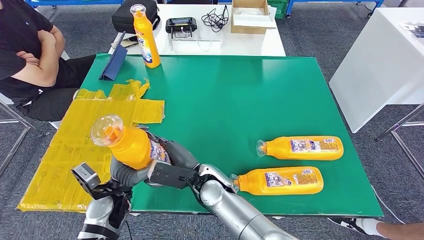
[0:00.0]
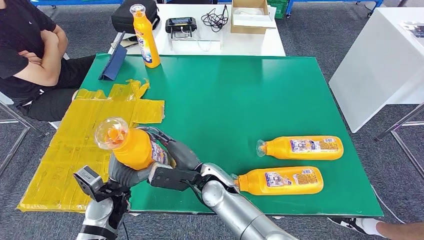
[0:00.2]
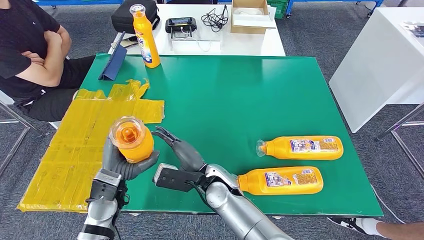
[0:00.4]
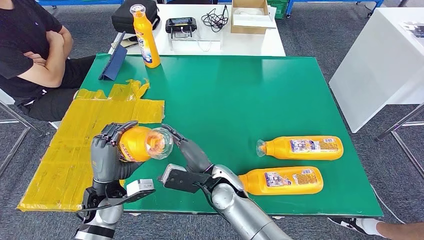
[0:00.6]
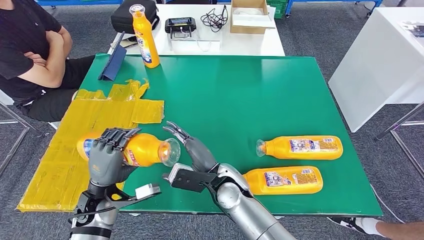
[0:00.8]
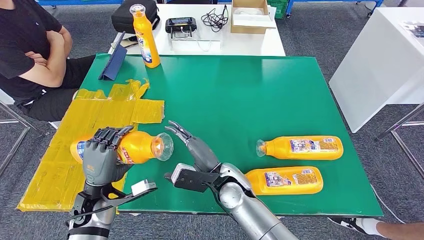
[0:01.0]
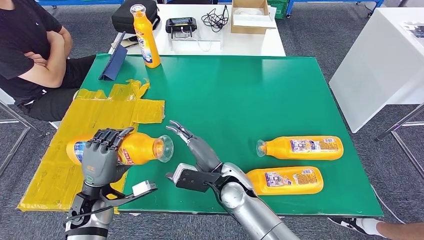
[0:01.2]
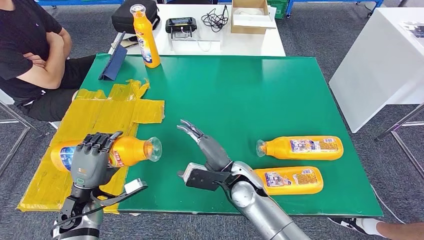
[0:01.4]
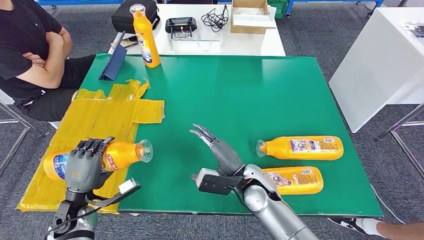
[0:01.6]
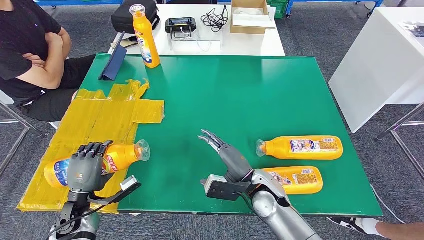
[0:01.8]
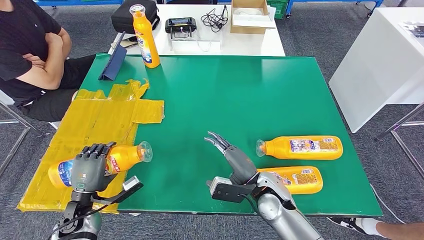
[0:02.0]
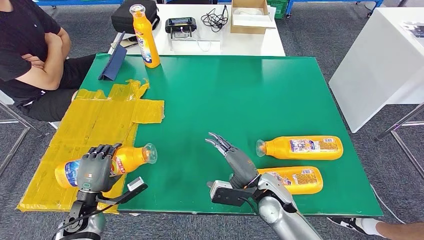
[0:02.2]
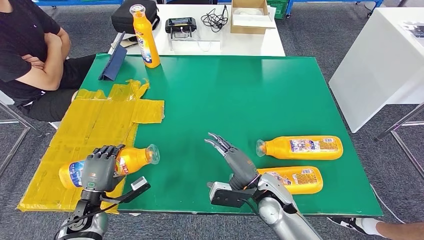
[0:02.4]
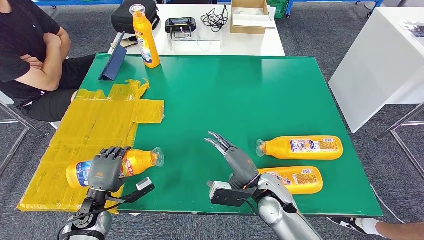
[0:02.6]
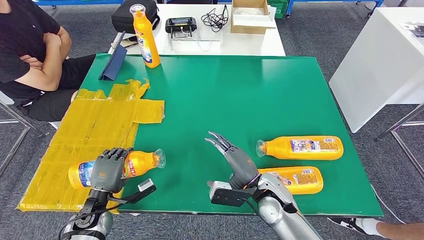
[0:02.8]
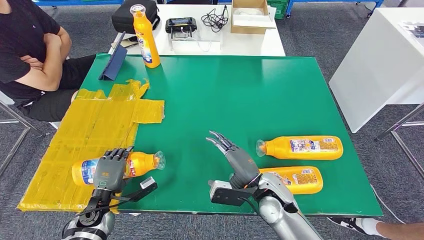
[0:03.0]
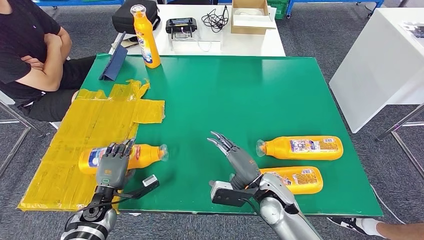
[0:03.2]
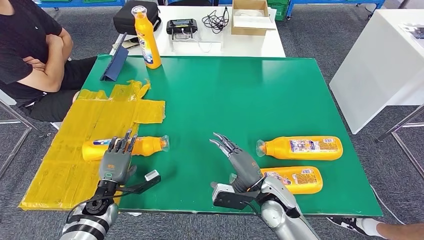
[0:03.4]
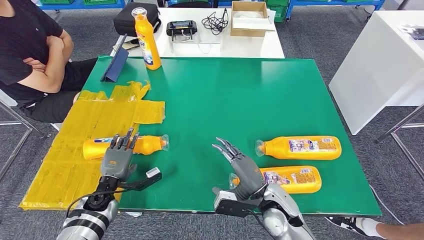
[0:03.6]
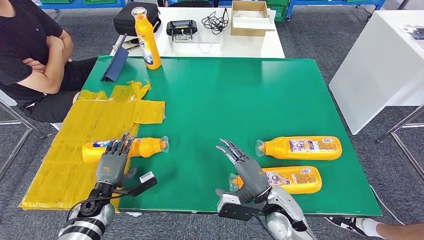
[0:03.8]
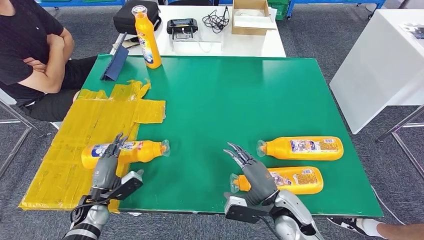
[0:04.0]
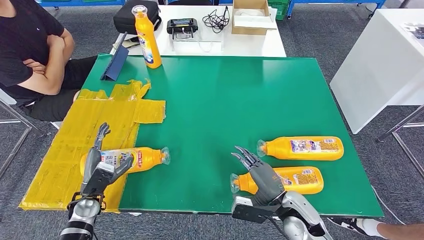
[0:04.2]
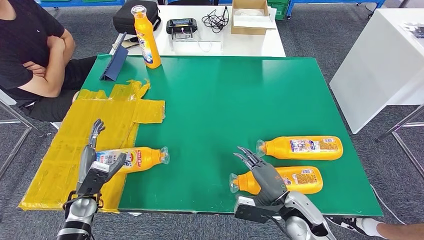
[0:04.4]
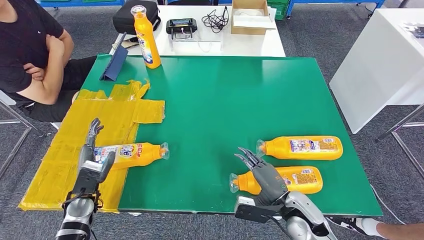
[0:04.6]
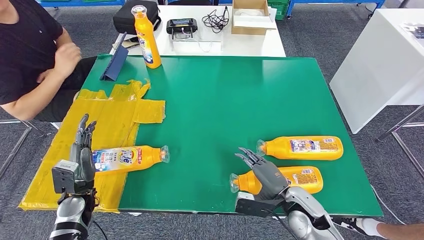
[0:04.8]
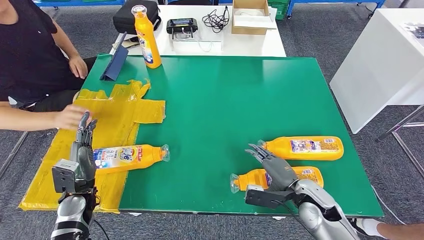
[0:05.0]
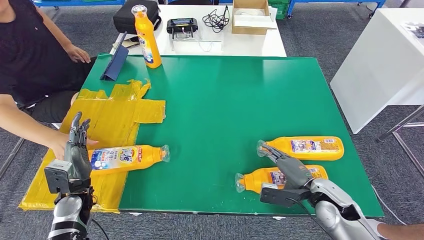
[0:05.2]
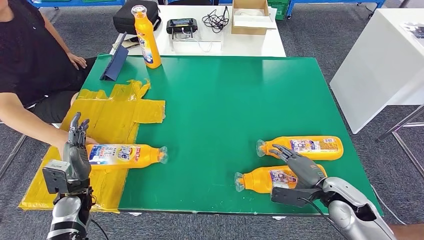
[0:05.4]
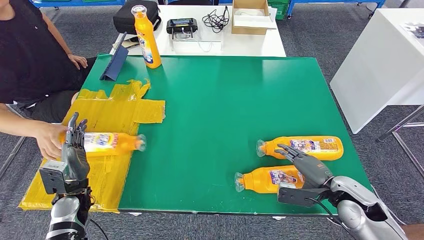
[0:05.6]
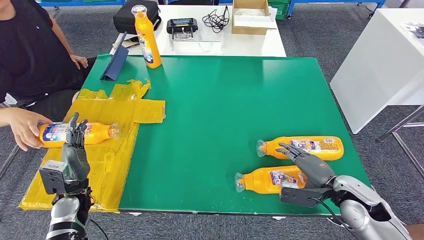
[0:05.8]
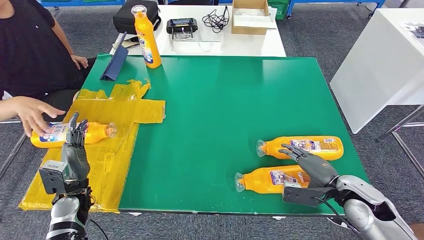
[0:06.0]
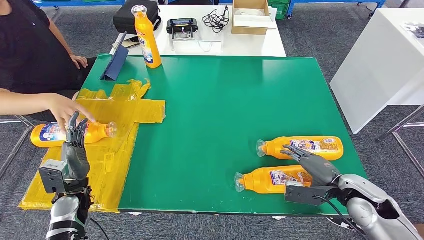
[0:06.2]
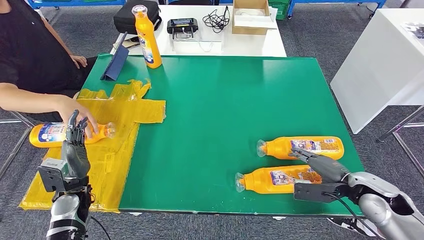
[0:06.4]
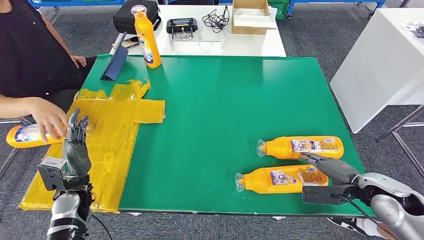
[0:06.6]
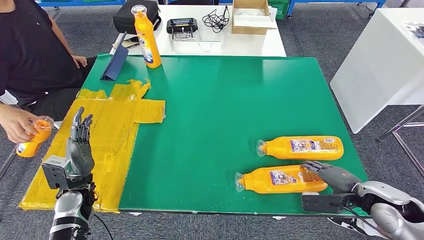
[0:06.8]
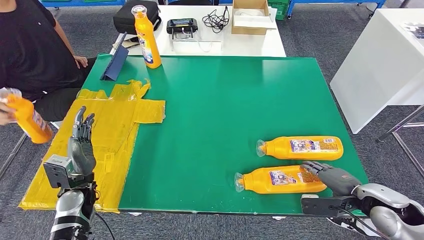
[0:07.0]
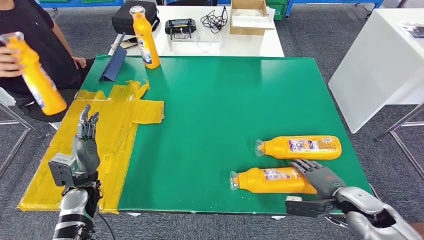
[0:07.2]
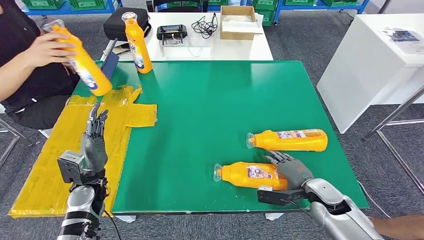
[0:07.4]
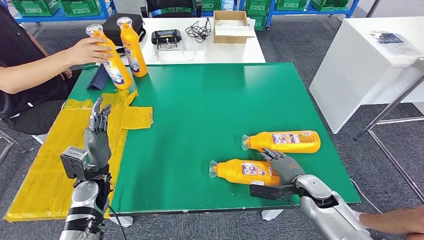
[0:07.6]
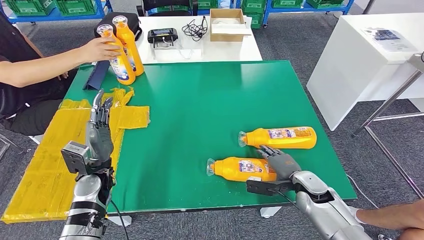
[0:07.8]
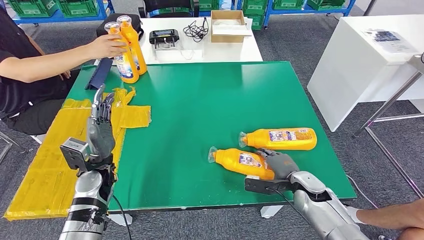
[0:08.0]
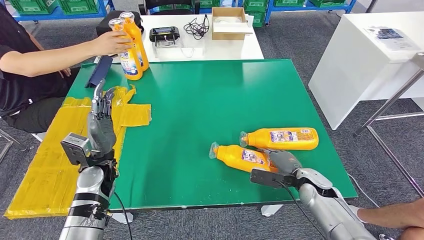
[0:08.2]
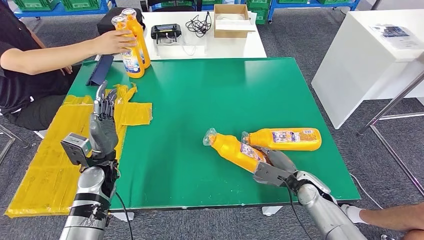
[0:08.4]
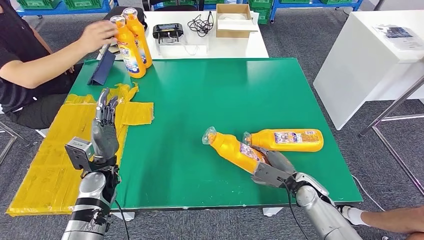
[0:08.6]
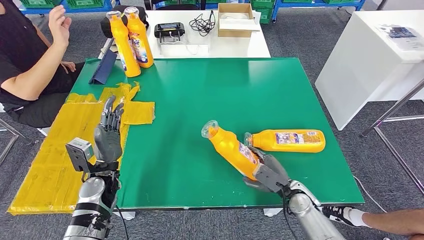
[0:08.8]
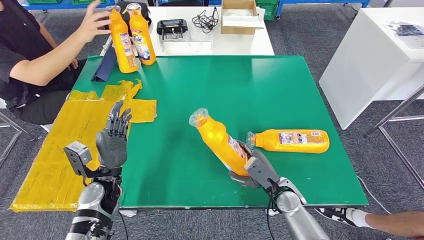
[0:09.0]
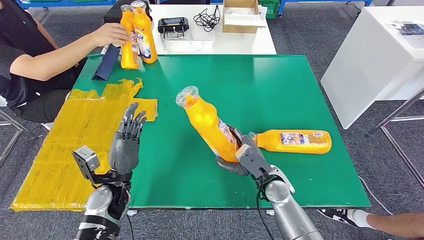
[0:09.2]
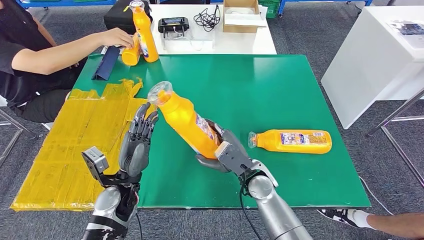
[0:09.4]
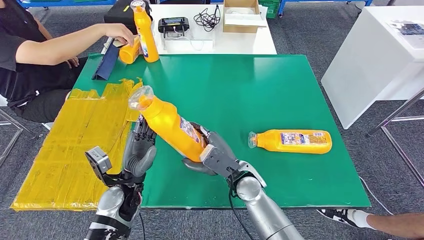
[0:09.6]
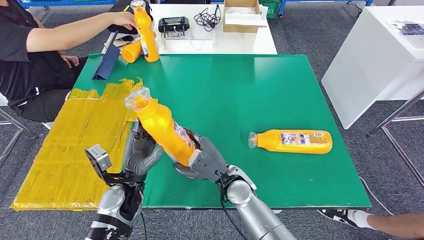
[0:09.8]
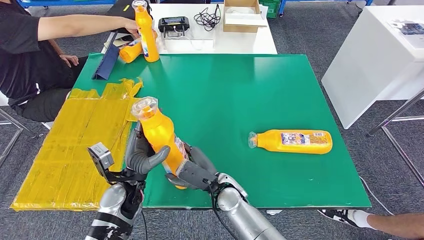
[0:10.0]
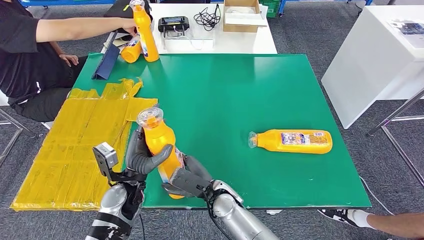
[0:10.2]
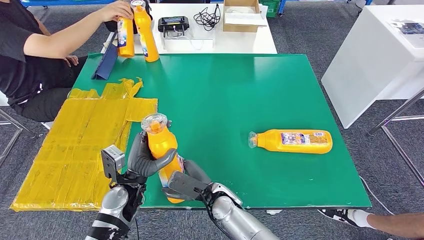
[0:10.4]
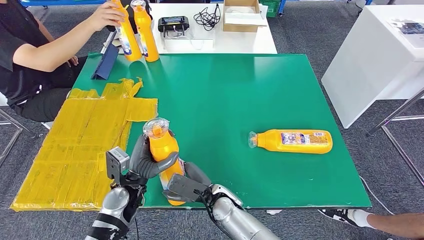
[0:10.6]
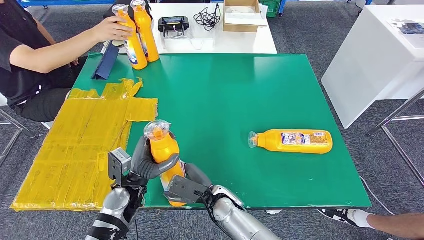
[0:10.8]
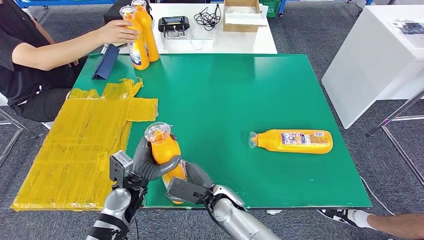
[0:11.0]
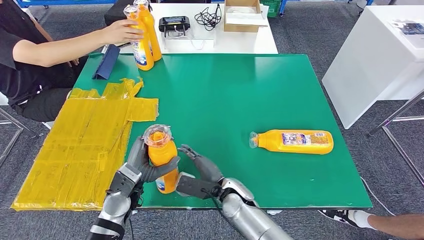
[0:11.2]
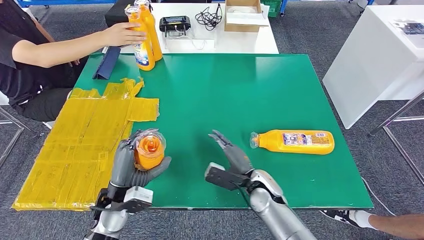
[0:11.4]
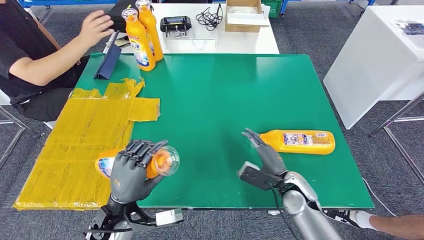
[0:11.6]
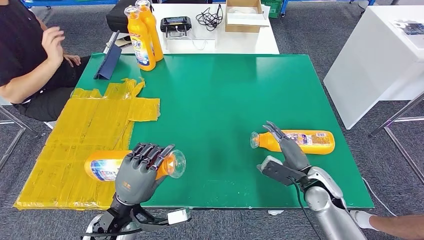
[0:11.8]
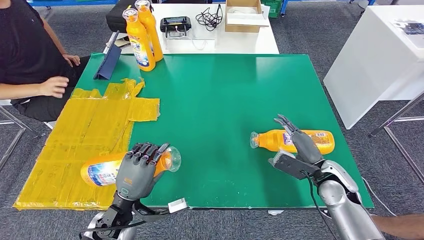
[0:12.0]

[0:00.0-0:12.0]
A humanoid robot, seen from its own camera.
Step, 0:00.0 to 0:03.8: Flip the bottle to face forward.
Step, 0:04.4 to 0:09.4: Pick up the bottle from the table.
0:00.0 to 0:01.6: The right hand goes about 10 cm to the right. Meanwhile the left hand travels to the left by some 10 cm.
0:01.6 to 0:03.0: The left hand travels downward by roughly 5 cm.
0:03.0 to 0:04.4: The right hand shifts roughly 5 cm to the right.
0:04.4 to 0:06.0: The right hand travels to the right by about 15 cm.

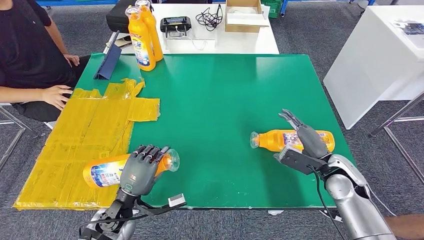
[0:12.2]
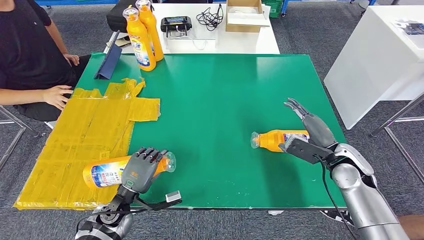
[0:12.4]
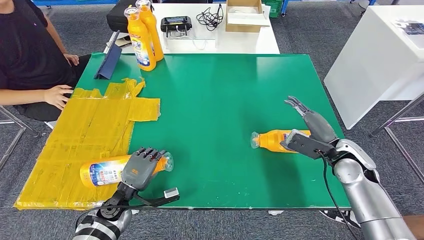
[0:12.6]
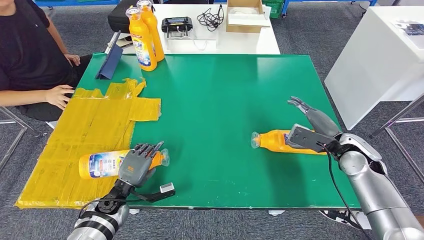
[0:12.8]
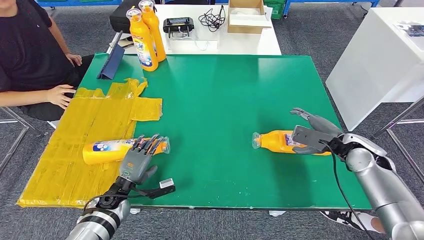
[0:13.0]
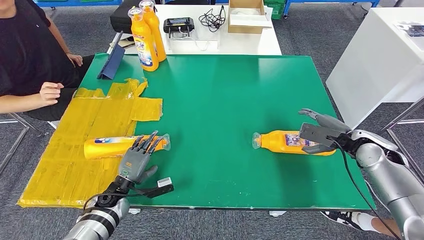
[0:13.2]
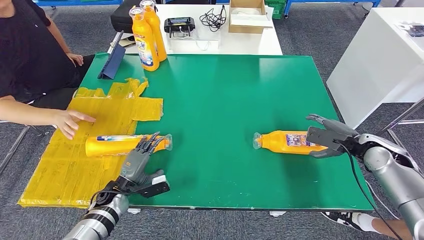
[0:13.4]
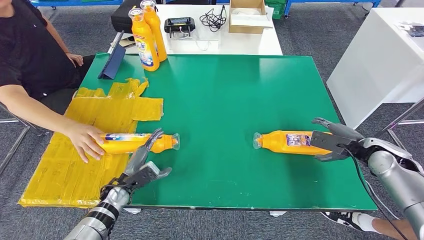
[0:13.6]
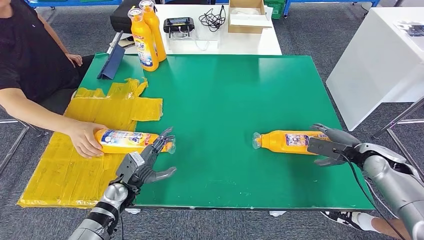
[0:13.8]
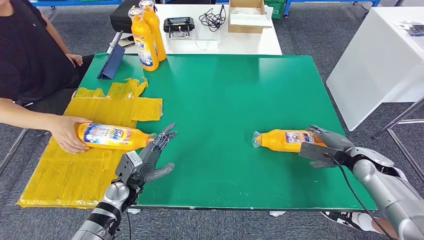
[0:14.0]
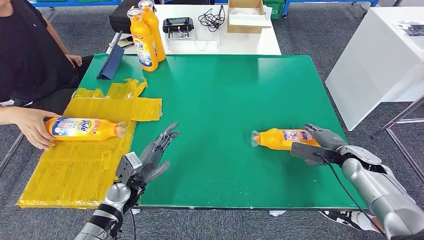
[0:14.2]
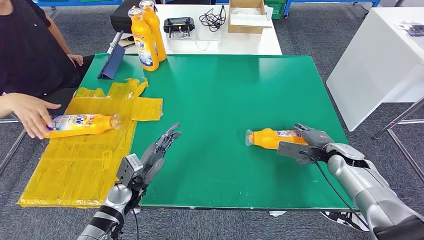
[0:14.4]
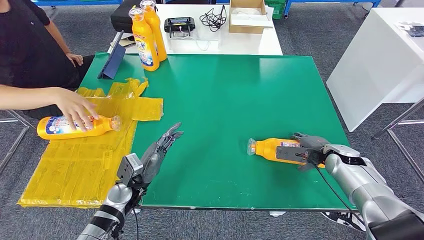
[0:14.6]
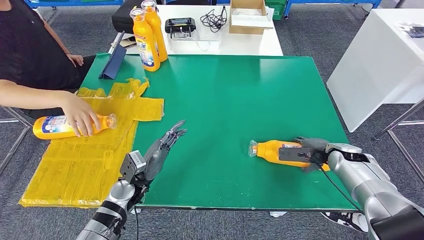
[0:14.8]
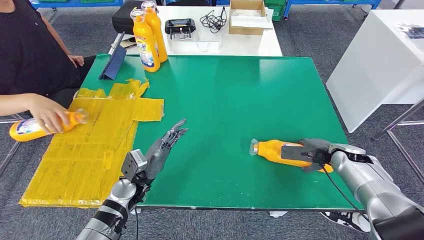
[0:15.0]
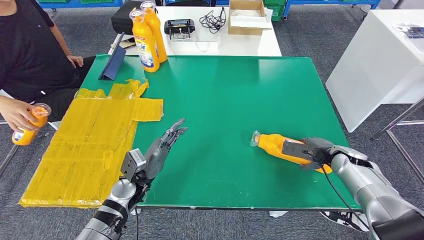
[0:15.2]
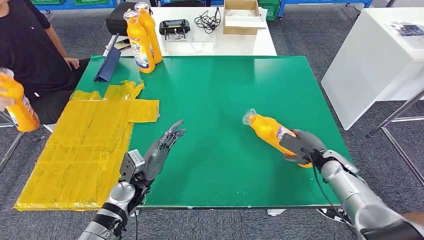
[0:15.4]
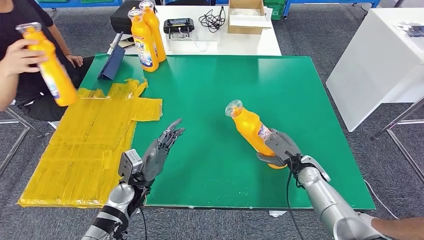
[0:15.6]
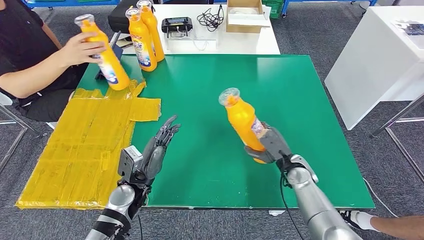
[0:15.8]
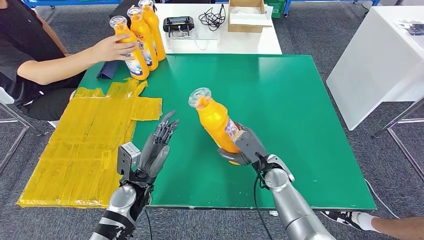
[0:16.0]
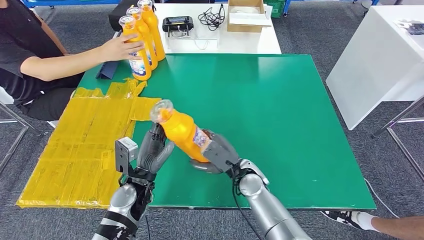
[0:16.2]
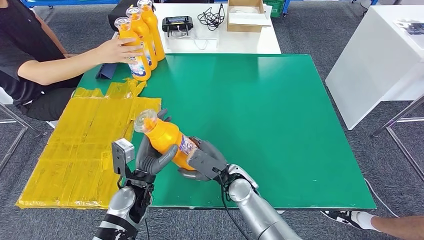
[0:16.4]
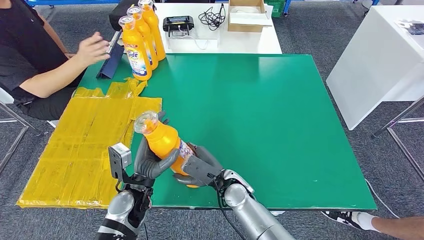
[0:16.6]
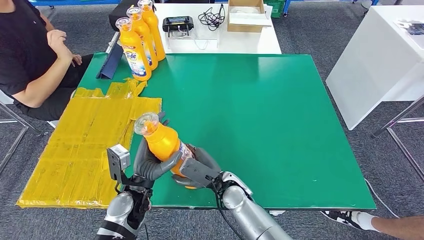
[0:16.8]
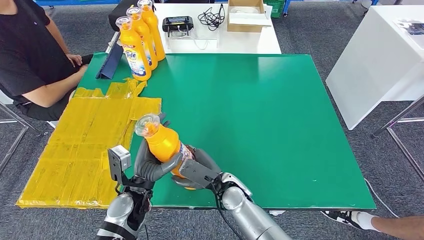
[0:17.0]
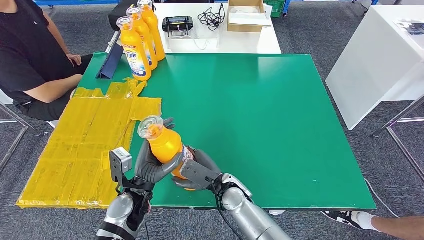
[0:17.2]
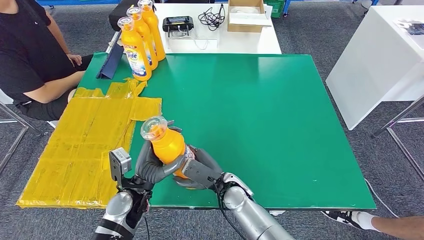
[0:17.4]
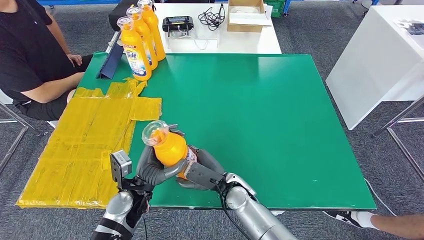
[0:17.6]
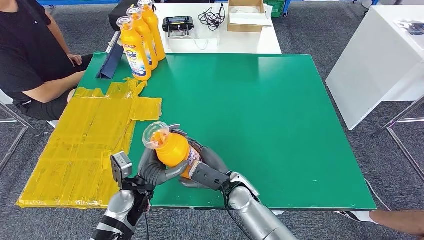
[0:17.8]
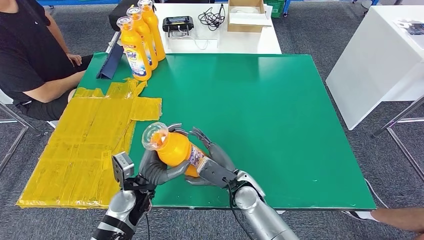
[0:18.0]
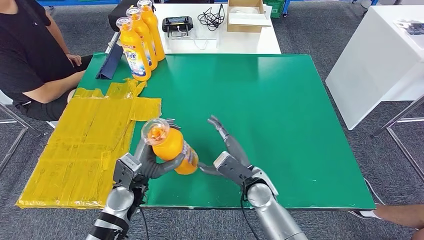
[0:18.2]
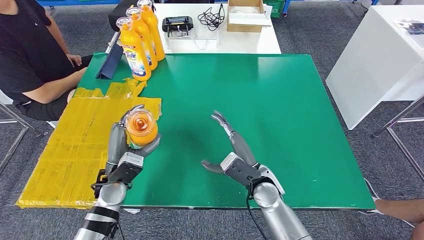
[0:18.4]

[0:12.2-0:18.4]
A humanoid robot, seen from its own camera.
Step, 0:12.2 to 0:14.2: Flip the bottle to face forward.
Step, 0:14.8 to 0:18.0: Pick up the bottle from the table.
0:16.8 to 0:18.4: The left hand is displaced to the left by approximately 5 cm. The right hand heads to the right, covering about 10 cm.
